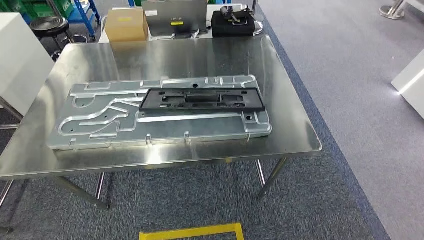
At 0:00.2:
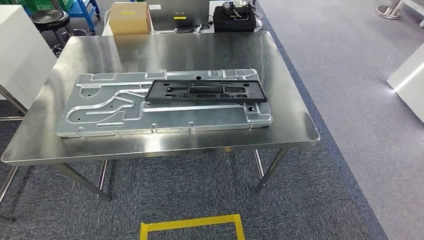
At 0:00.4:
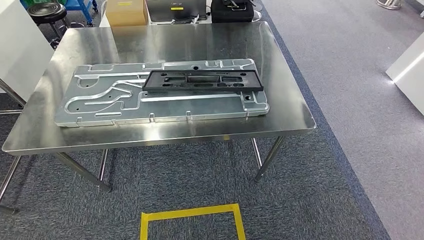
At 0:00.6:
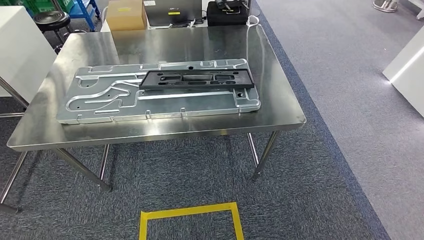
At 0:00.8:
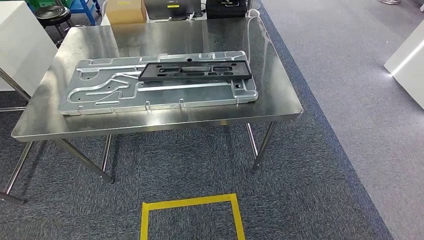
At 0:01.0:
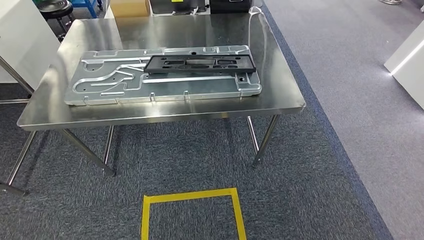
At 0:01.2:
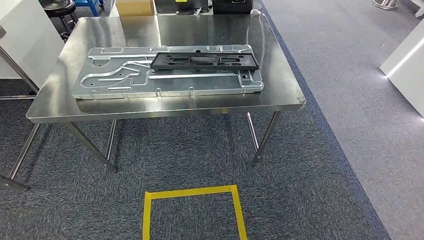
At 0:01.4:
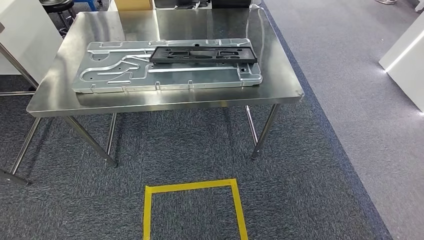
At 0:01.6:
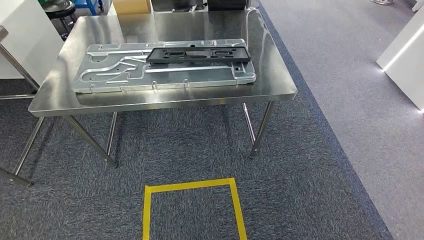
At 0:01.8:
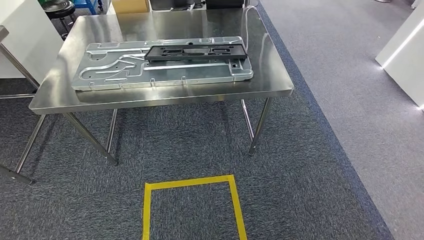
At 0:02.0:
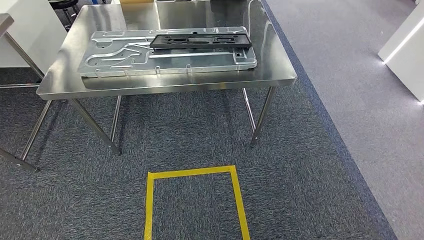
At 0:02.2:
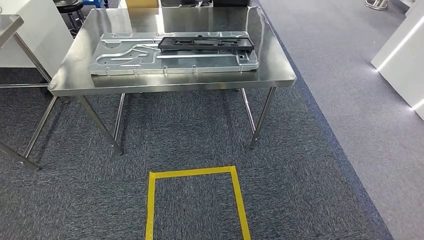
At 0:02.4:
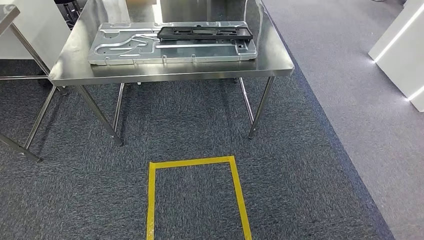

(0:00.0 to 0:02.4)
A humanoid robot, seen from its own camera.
Step, 0:00.0 - 0:02.4: Return to the initial position at the shelf.
